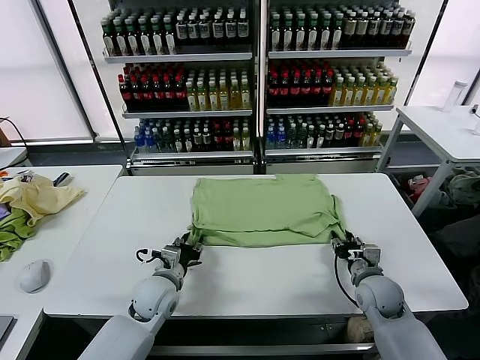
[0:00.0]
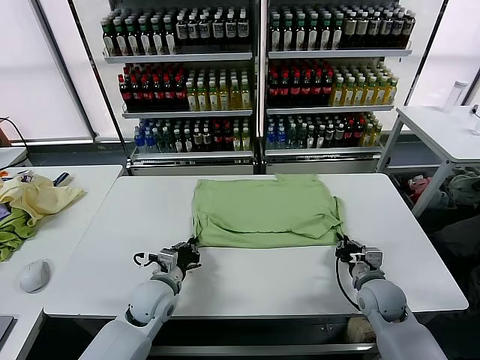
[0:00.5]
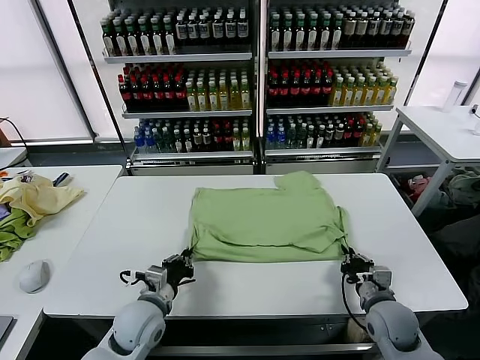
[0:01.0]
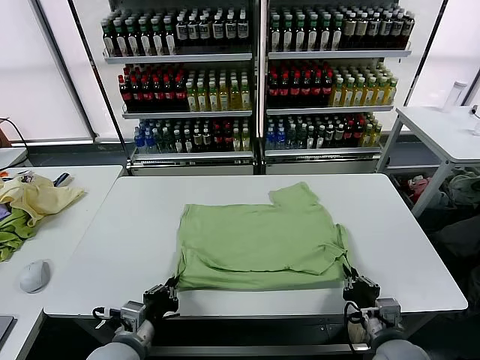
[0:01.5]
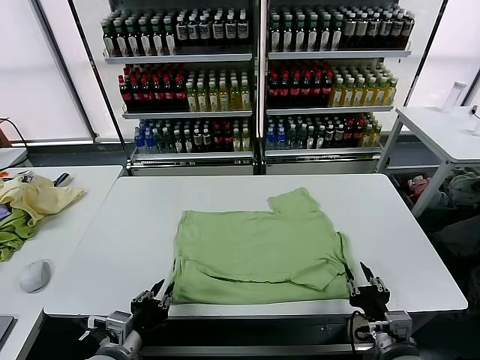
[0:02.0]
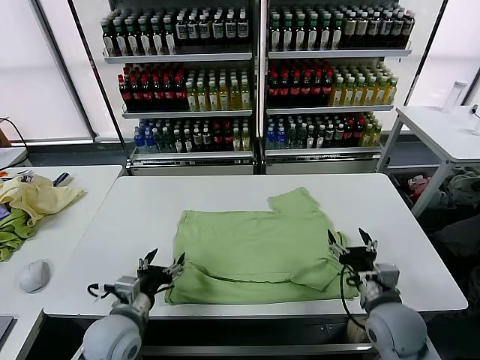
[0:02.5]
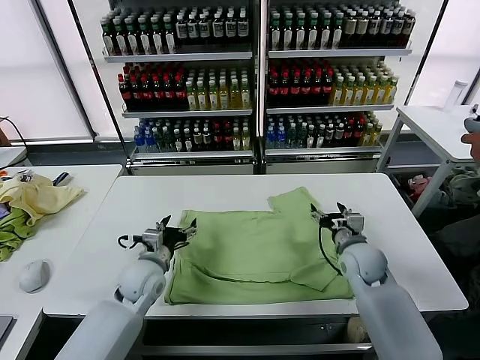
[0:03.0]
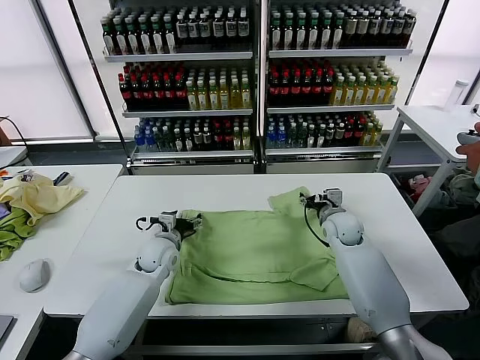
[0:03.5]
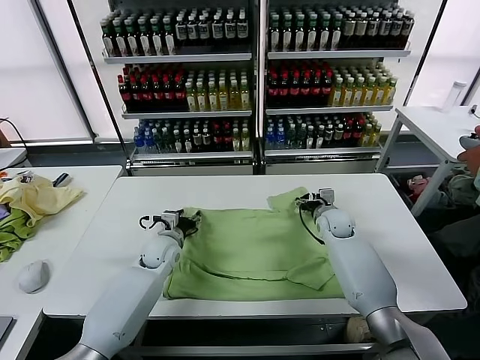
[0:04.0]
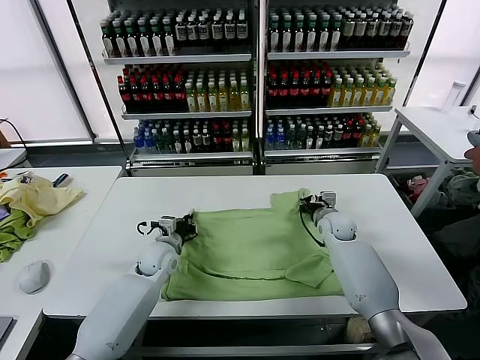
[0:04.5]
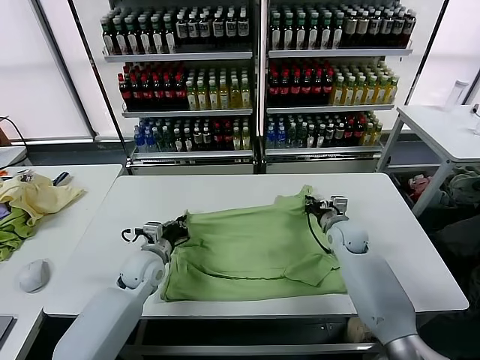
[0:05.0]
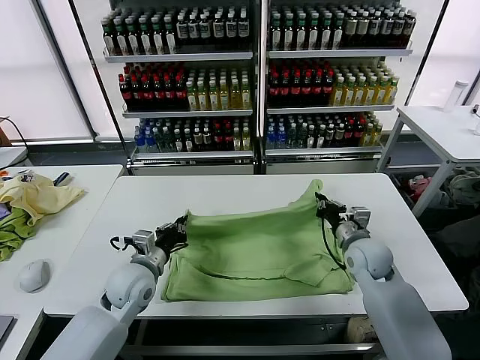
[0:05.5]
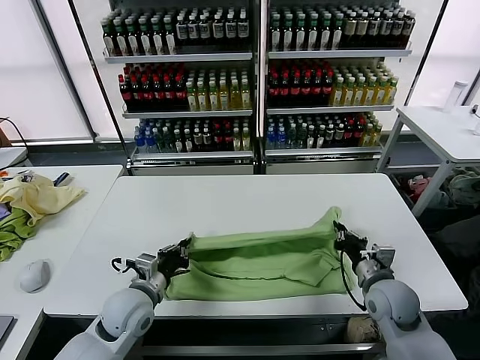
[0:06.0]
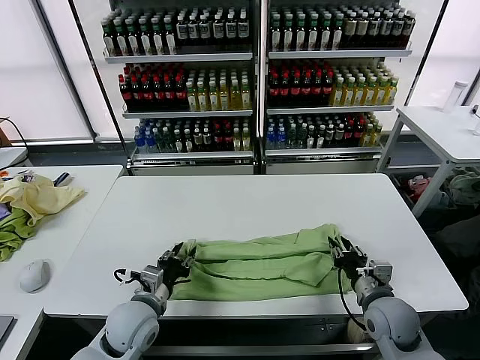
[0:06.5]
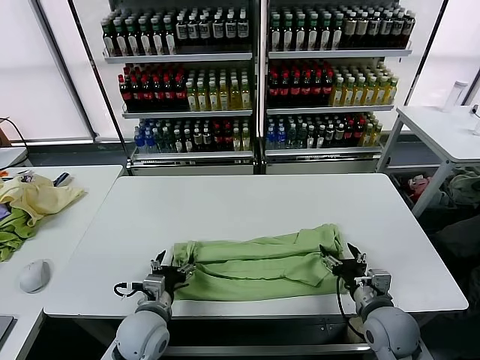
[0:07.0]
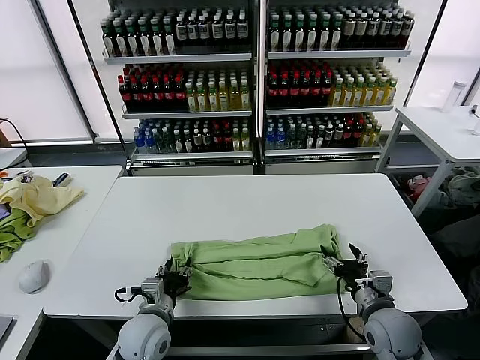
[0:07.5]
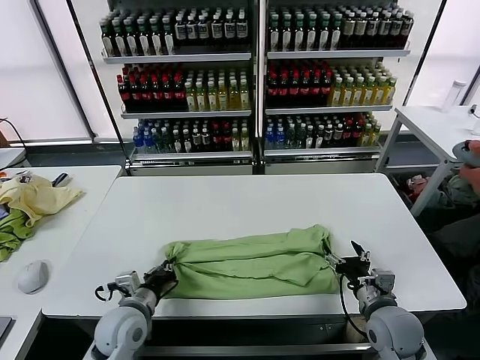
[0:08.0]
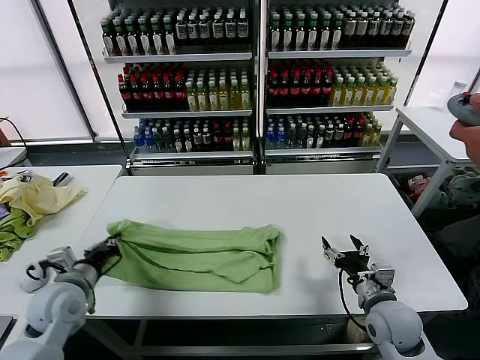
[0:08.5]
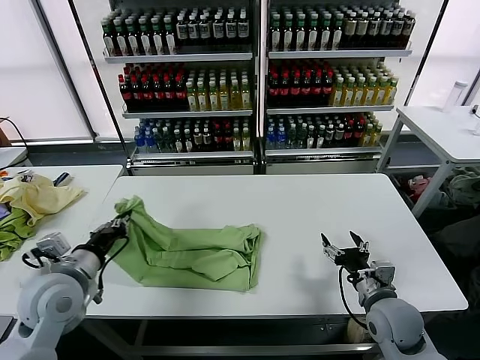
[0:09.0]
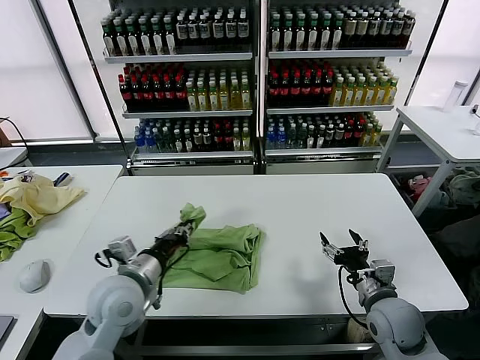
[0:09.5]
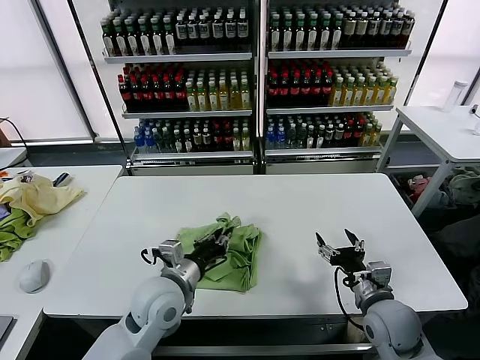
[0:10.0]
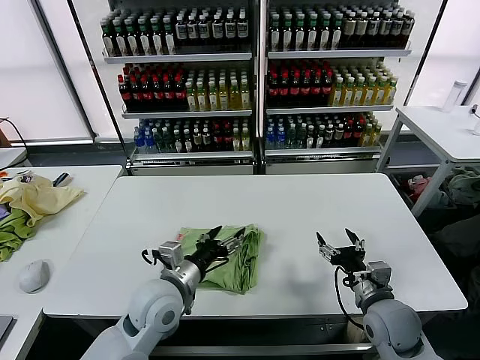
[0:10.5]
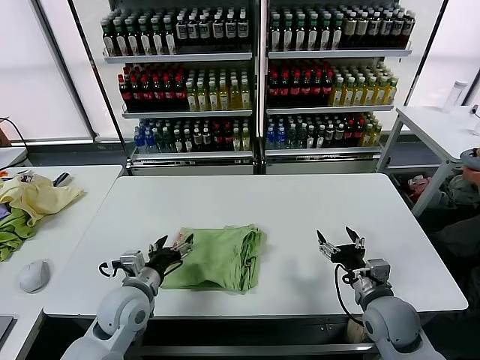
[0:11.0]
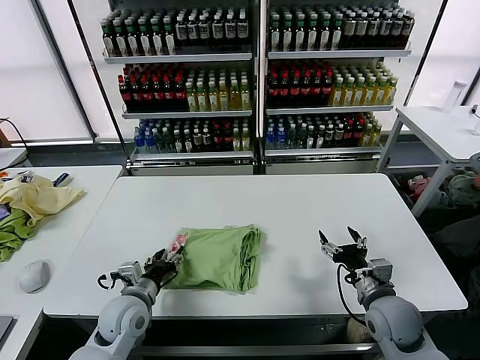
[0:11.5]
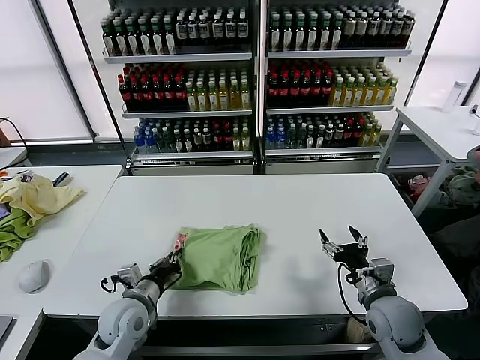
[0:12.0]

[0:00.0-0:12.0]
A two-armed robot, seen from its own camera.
Task of the whole recording: fold and organize the clothes.
Step, 0:00.0 to 0:02.0: Drag the clothes downward with both gripper.
Step, 0:02.5 to 0:04.5: use both grippers simultaneously to clamp the upper edge of the clothing fabric.
Step, 0:05.0 to 0:06.5: use both grippers to drag the upper edge of the fabric backward and fold it over the lower edge.
Step, 0:07.0 to 0:07.5: use the left gripper to clamp the left edge of the fabric.
Step, 0:08.0 to 0:10.0: use the left gripper to drag the left edge of the fabric to the left and folds it over the right edge.
0:00.0 to 0:02.0: The grippers both shift backward by roughly 20 cm. The left gripper closes, then reopens.
0:02.0 to 0:04.0: The two grippers go approximately 35 cm forward.
0:04.0 to 0:06.0: Both grippers move backward, roughly 20 cm. The right gripper closes; the left gripper closes up.
0:06.0 to 0:08.0: The right gripper opens its fingers; the left gripper opens, then closes once more.
0:08.0 to 0:10.0: The left gripper goes roughly 10 cm to the right and upward.
0:10.0 to 0:12.0: The left gripper goes roughly 10 cm to the left and downward, and opens, then closes again.

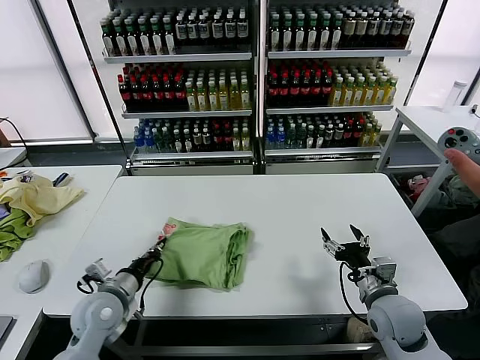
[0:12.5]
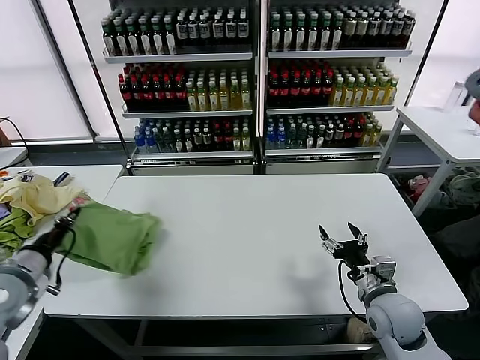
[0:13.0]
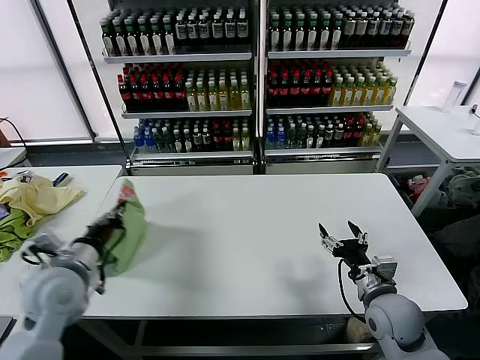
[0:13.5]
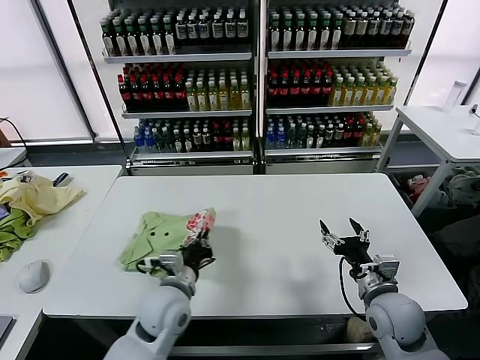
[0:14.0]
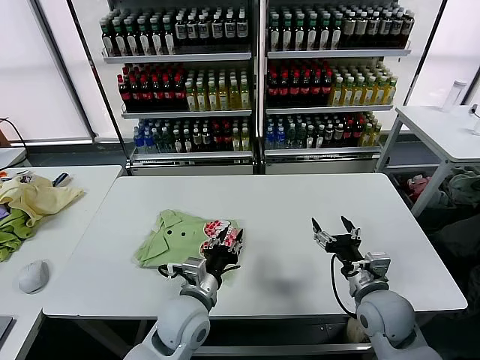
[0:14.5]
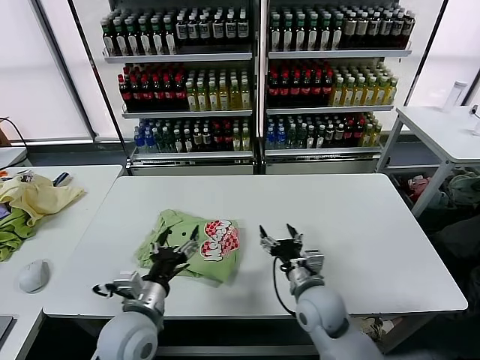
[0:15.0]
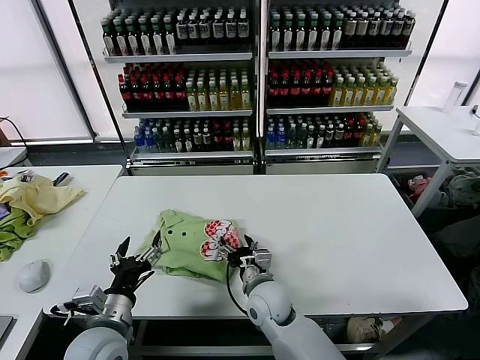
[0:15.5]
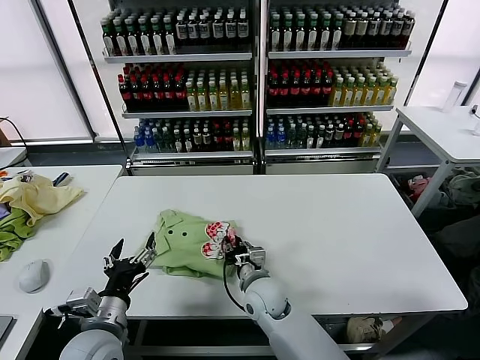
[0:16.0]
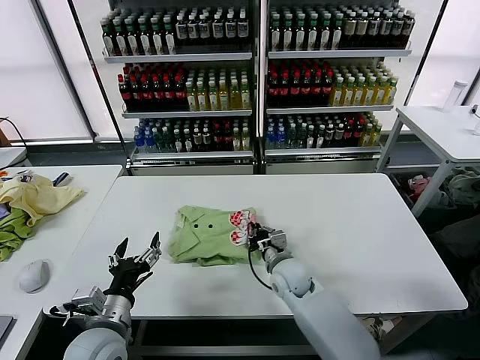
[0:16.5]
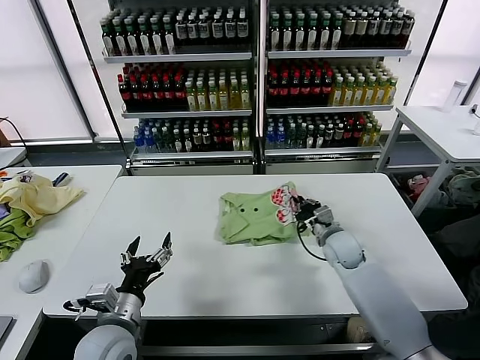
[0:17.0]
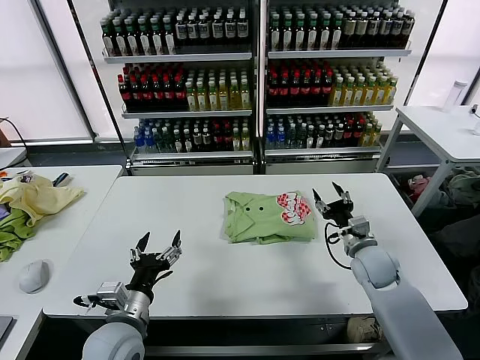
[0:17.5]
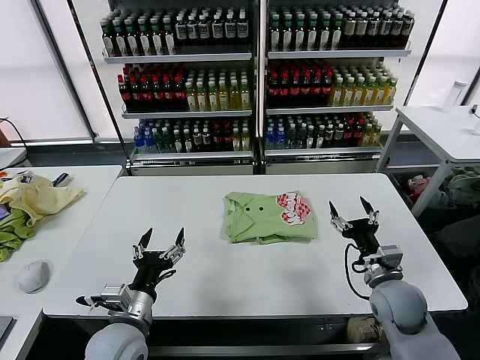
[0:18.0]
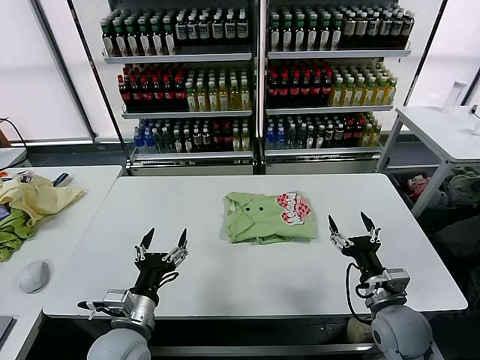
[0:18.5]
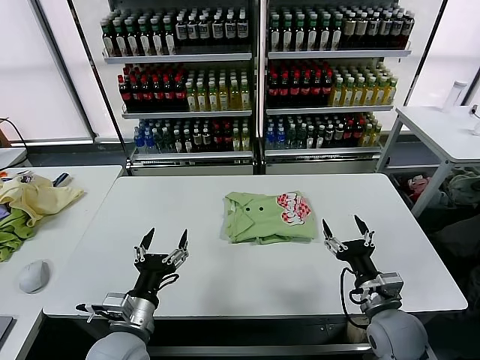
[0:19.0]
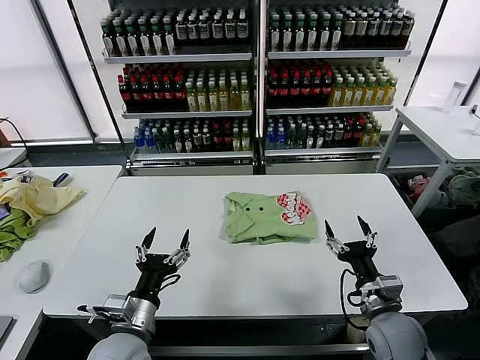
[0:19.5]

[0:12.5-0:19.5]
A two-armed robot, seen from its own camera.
Task of the whole recording: fold and organize the clothes.
Step, 0:15.0 to 0:17.0: Drag the clothes to the center of the table.
0:12.5 to 0:14.5: The left gripper moves to the right, approximately 20 cm, and opens its fingers.
0:14.5 to 0:16.0: The left gripper is displaced to the left and backward by some 15 cm, and opens its fingers, while the right gripper goes roughly 25 cm to the left, and closes its fingers.
0:16.0 to 0:17.5: The right gripper travels to the right by approximately 25 cm, and closes, then reopens.
0:17.5 to 0:19.5: The right gripper shifts approximately 15 cm backward.

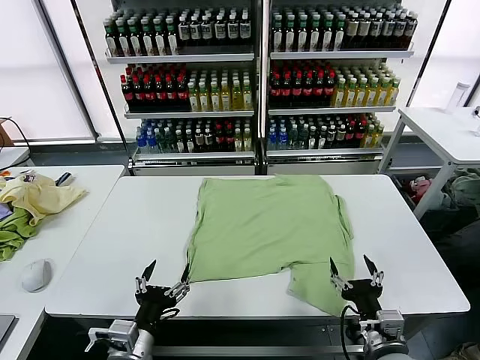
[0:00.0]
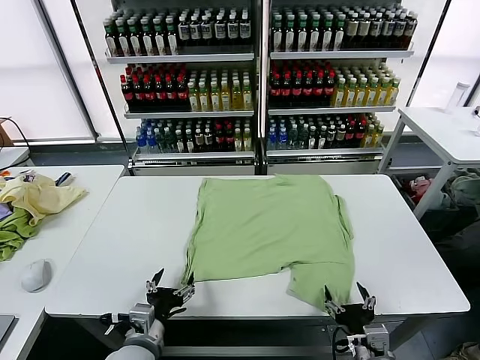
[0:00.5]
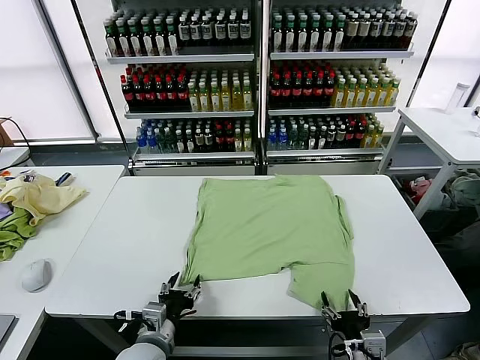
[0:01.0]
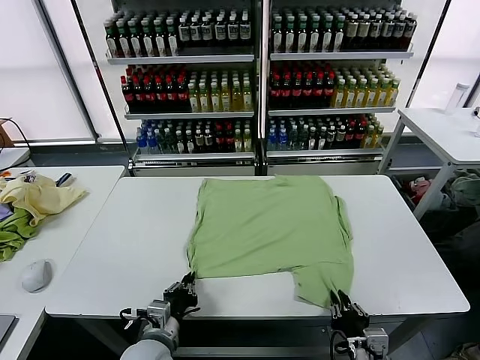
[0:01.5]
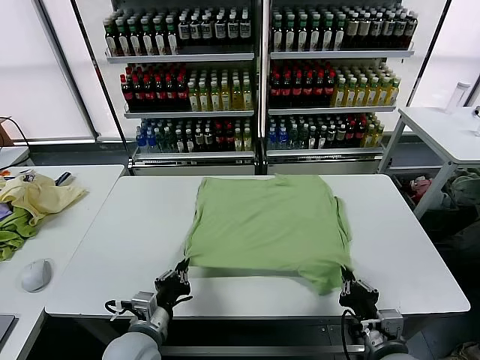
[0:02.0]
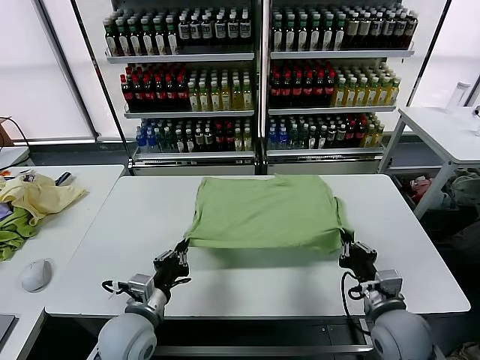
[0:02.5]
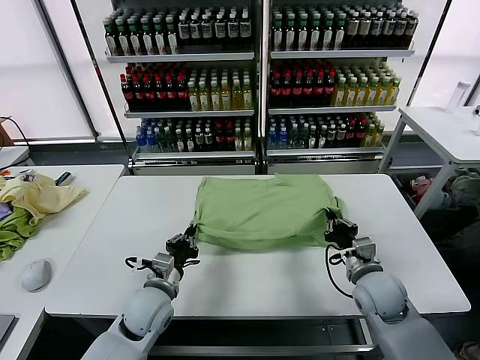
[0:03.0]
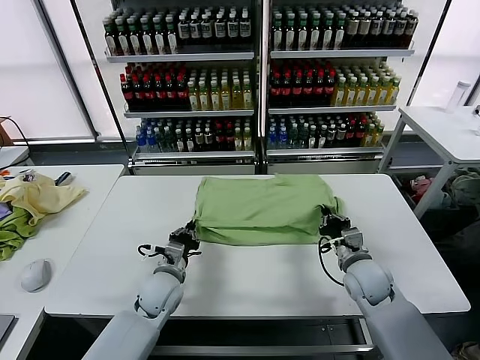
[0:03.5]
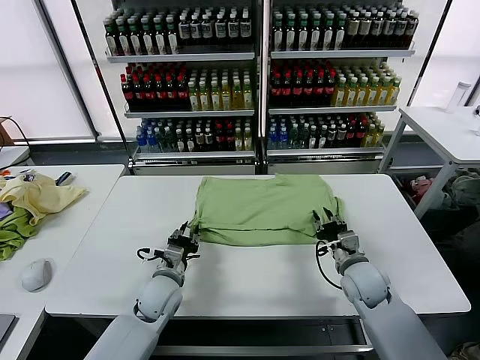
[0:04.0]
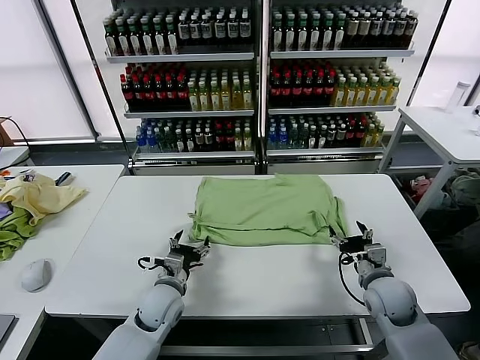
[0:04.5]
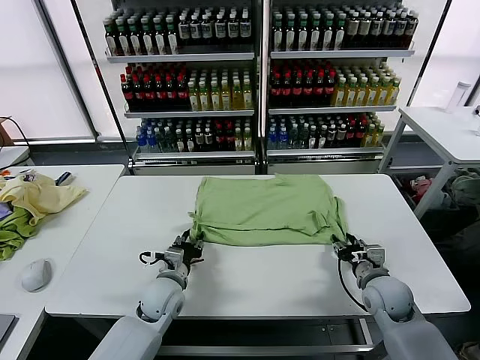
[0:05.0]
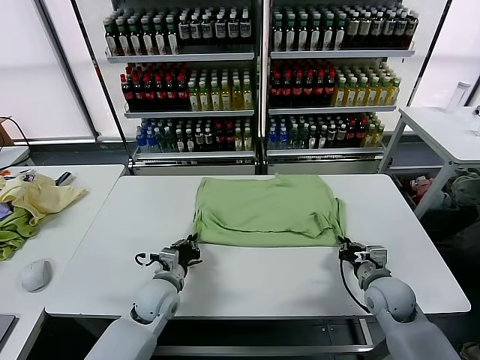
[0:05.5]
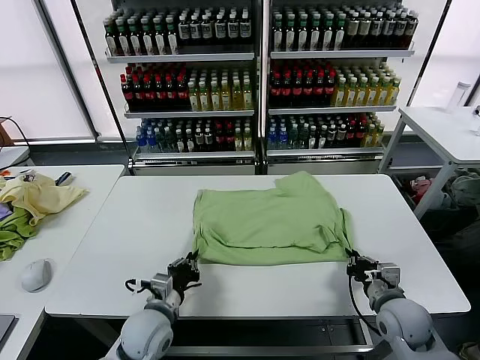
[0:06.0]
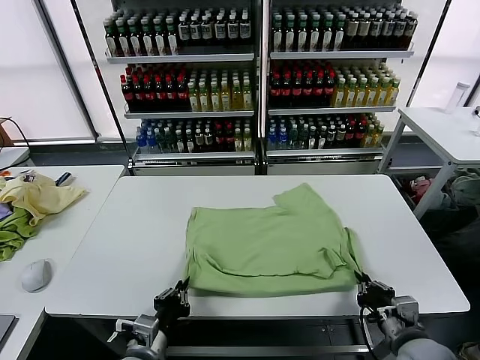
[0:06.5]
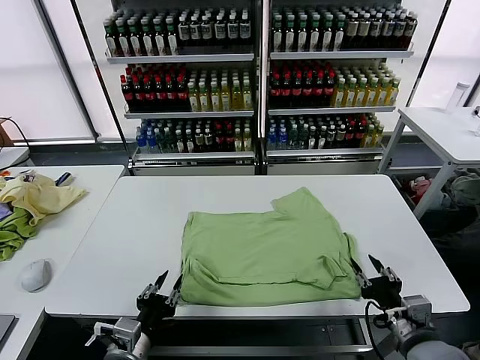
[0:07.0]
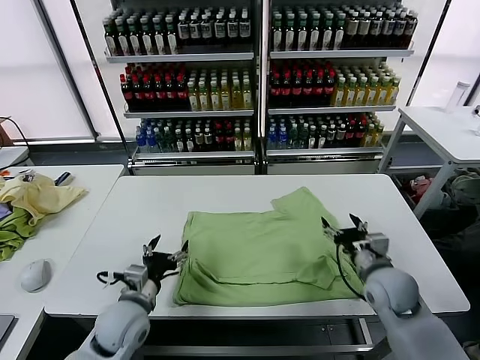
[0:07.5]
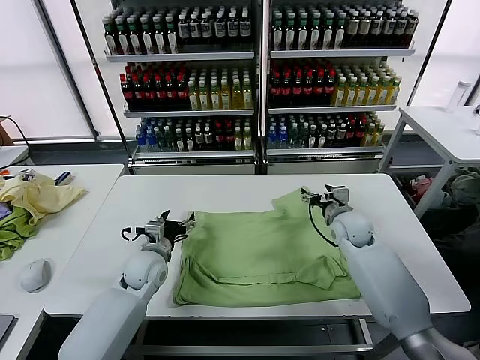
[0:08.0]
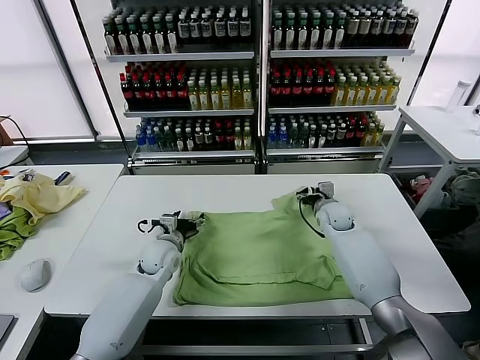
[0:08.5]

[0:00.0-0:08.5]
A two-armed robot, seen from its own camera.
Task of the whole recording: fold and organize the clothes.
Step, 0:00.0 to 0:01.5: use both grippers simultaneously to clamp the lower edge of the clothing fabric.
Step, 0:02.0 to 0:04.0: use both grippers to drag the lower edge of the fabric forward and fold it over the upper edge.
Step, 0:04.5 to 0:06.5: Drag the clothes downward with both gripper.
0:02.0 to 0:04.0: Both grippers move forward, about 15 cm. The left gripper opens. Meanwhile the right gripper opens.
0:04.0 to 0:06.5: Both grippers travel together backward, approximately 15 cm. The left gripper closes up; the right gripper closes up.
0:06.5 to 0:08.5: Both grippers move forward, roughly 30 cm. The right gripper opens up. The left gripper opens.
